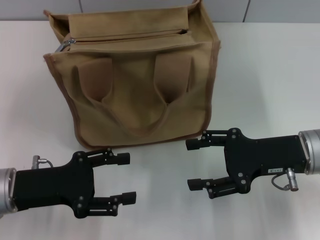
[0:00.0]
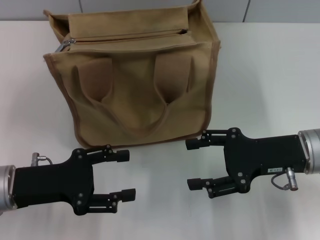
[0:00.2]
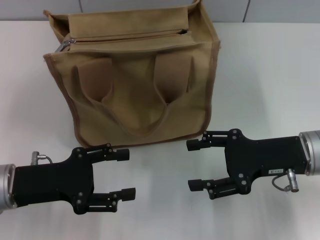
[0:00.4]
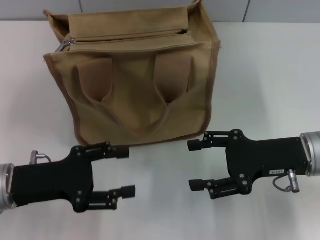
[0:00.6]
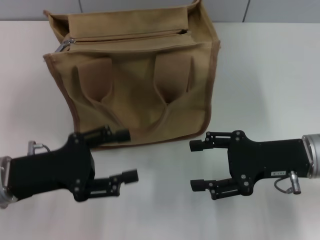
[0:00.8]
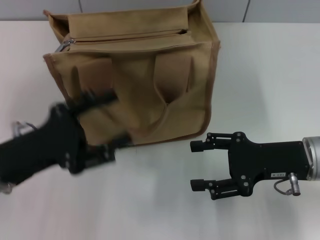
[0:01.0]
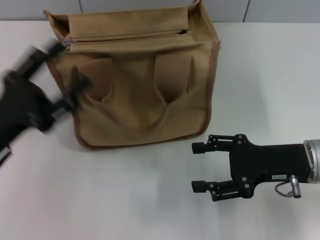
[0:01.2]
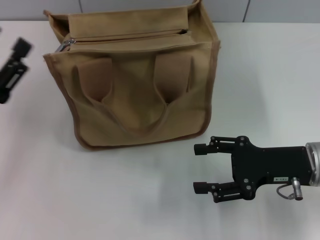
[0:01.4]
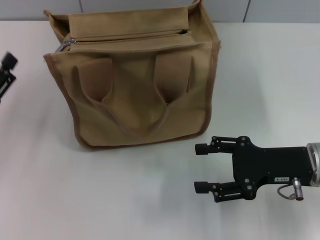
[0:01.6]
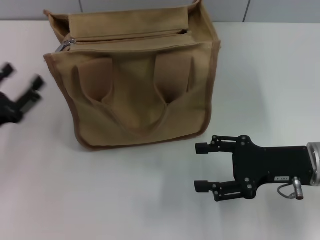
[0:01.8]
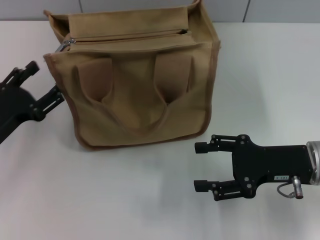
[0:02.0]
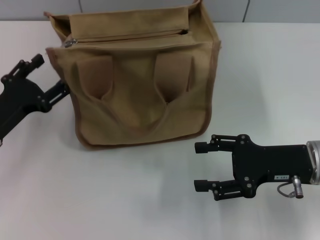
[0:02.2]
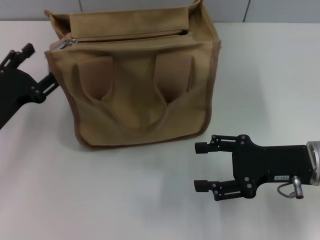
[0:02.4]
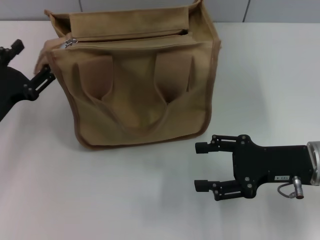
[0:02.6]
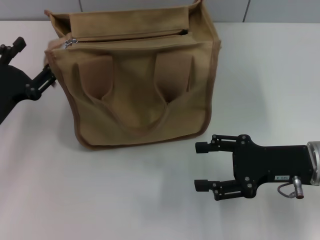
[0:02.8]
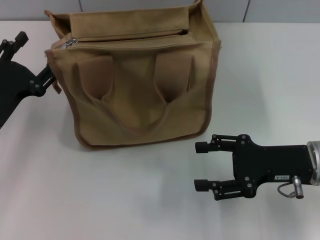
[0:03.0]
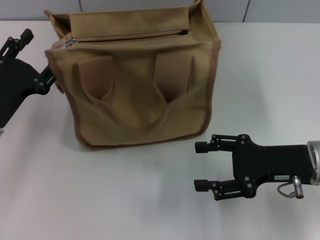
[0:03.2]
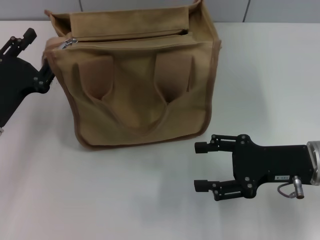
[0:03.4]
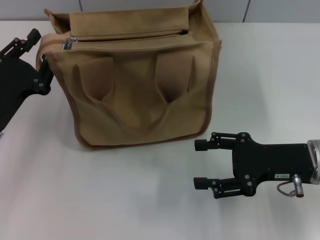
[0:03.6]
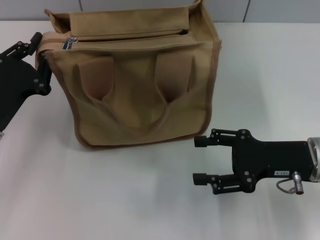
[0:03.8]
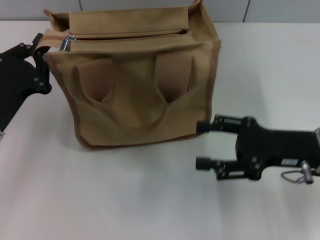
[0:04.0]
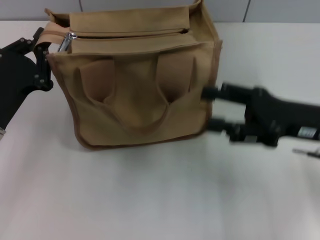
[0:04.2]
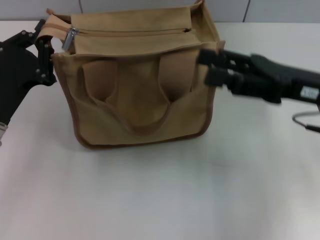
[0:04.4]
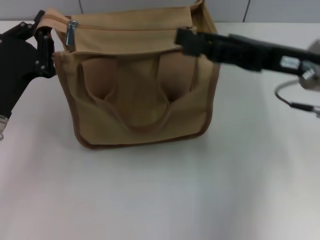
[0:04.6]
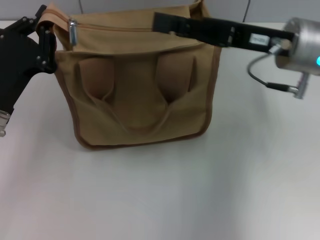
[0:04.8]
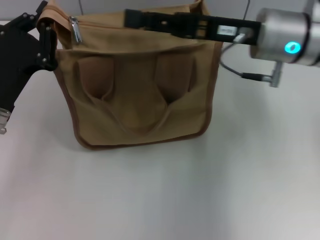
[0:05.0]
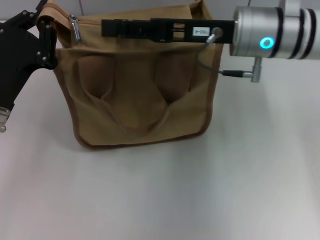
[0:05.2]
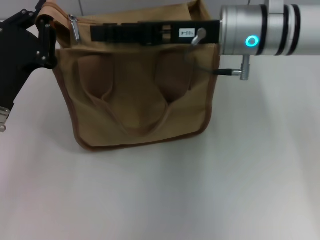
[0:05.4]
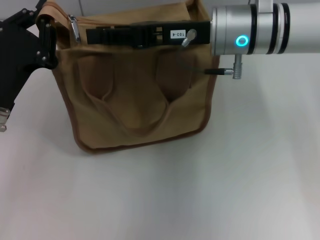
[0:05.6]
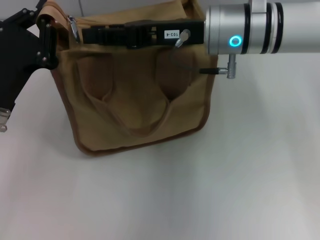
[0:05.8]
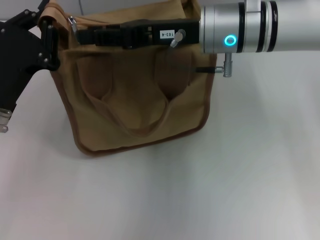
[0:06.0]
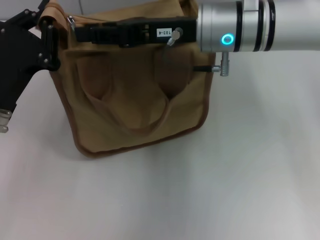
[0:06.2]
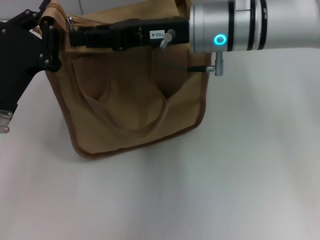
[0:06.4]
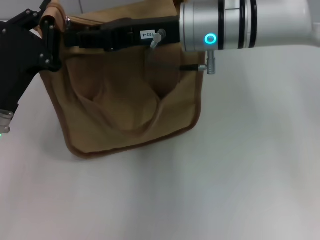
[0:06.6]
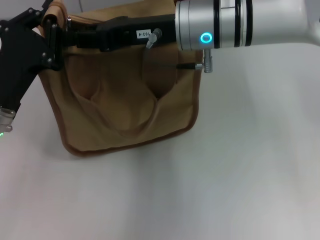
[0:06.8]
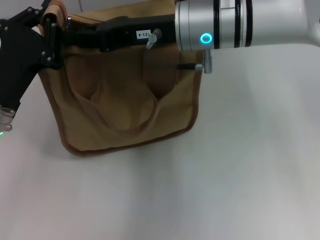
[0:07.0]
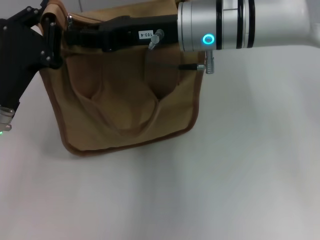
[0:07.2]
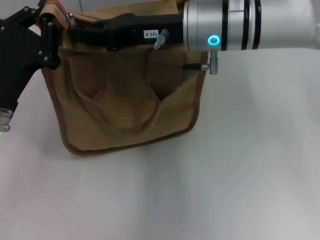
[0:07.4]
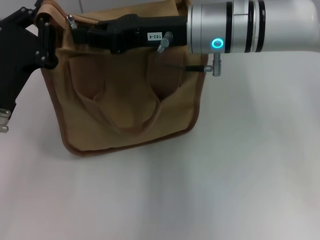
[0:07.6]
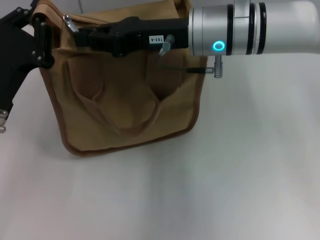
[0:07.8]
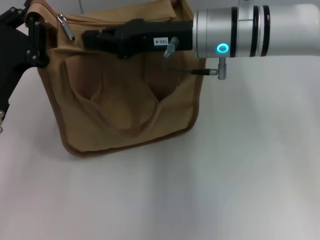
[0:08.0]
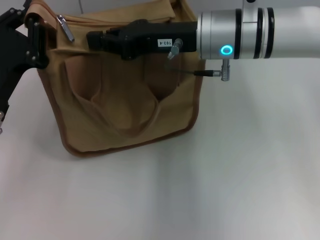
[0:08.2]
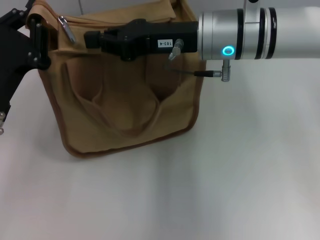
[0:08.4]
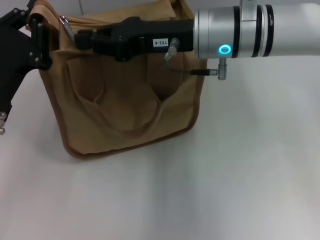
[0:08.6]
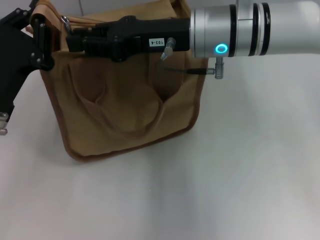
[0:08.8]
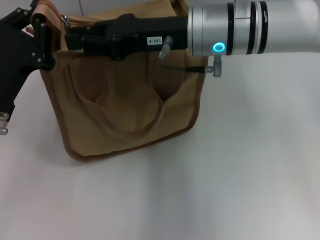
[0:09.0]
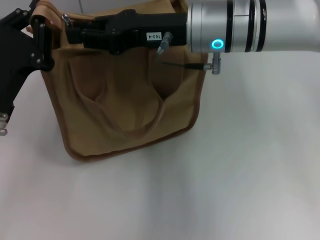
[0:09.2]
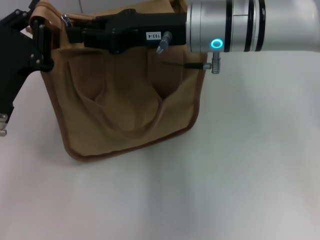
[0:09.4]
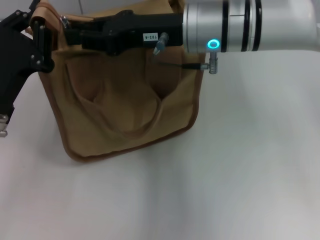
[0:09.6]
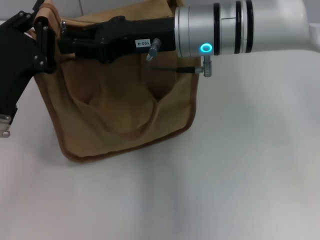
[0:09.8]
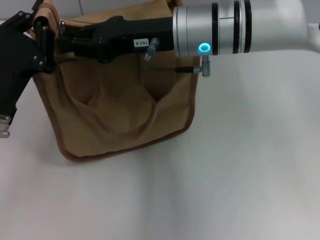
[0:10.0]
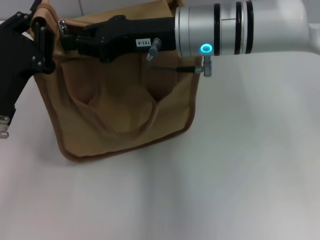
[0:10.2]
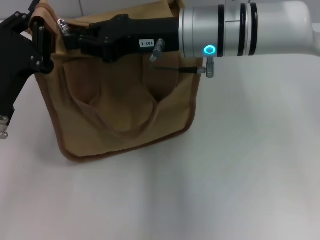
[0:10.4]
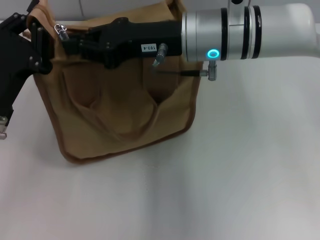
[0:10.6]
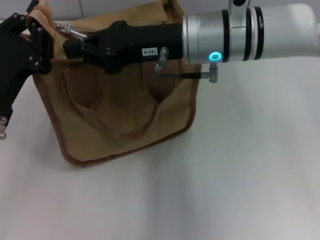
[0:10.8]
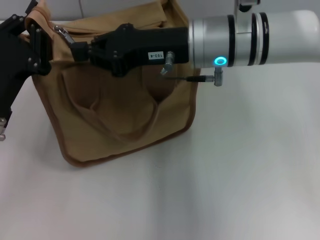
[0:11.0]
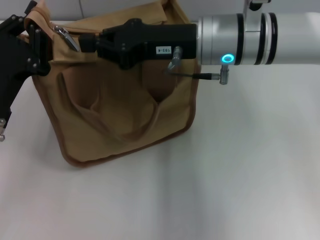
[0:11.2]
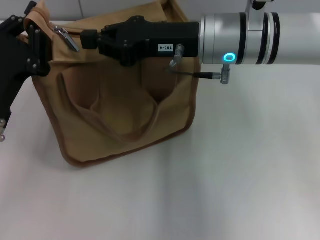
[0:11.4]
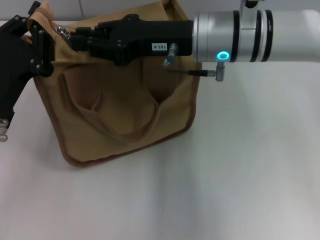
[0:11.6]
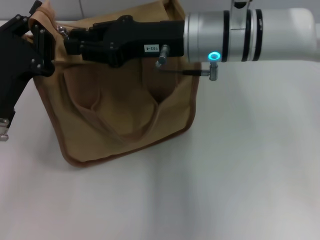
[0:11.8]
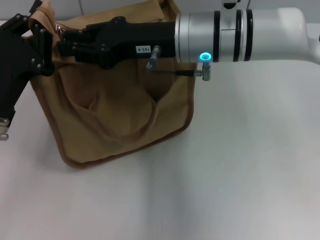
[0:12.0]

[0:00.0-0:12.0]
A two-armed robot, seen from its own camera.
0:00.0 to 0:01.6: The left gripper heads to the left, covering about 5 cm.
0:01.6 to 0:03.0: The left gripper ends up about 5 cm from where it was.
0:03.0 to 0:04.4: The right gripper is displaced upward by some 5 cm. The left gripper closes its fingers.
0:04.4 to 0:06.0: The right gripper shifts about 15 cm to the left and forward, and closes up.
0:06.0 to 0:12.0: The grippers make only small movements.

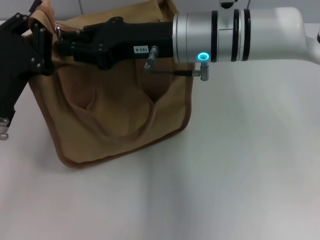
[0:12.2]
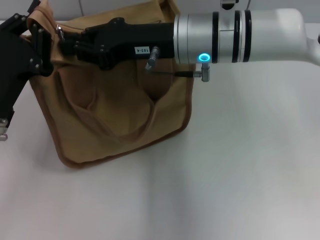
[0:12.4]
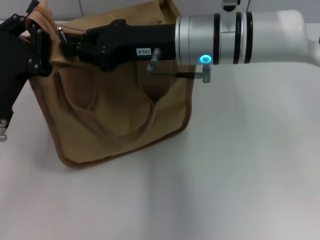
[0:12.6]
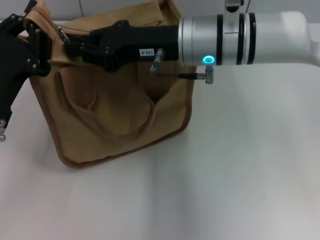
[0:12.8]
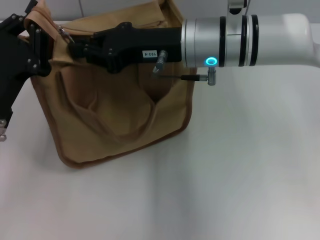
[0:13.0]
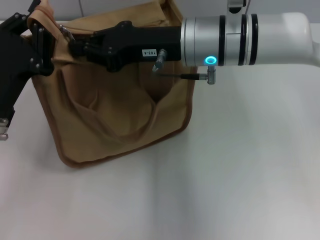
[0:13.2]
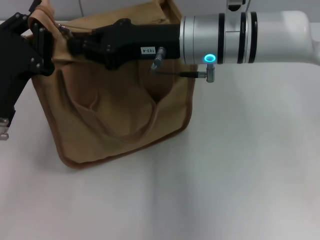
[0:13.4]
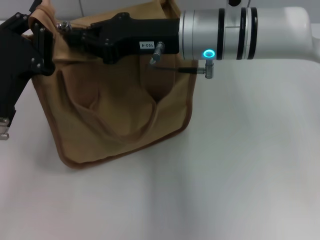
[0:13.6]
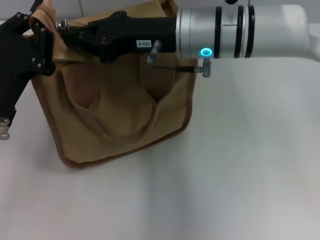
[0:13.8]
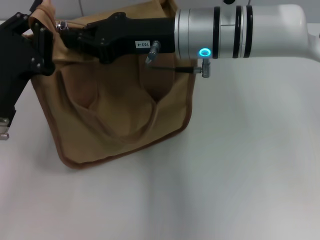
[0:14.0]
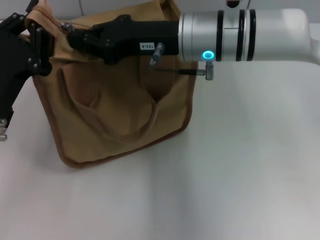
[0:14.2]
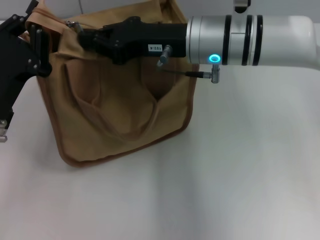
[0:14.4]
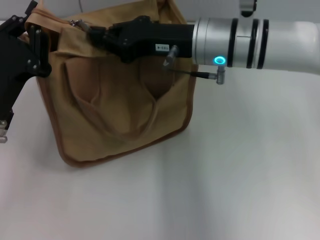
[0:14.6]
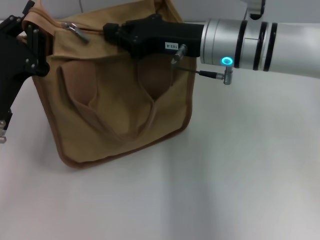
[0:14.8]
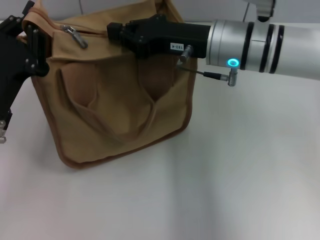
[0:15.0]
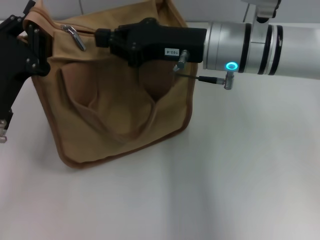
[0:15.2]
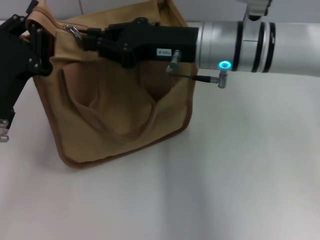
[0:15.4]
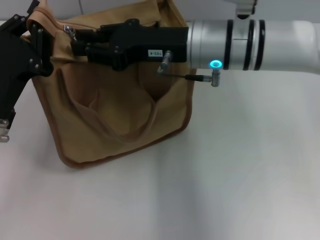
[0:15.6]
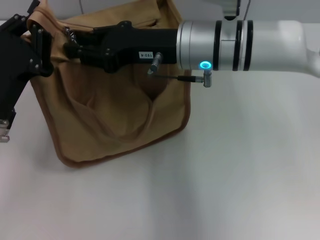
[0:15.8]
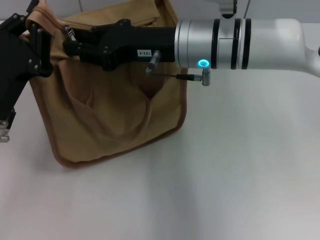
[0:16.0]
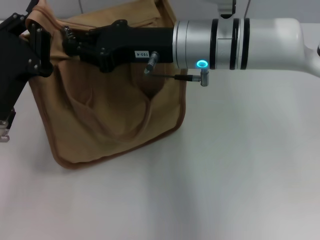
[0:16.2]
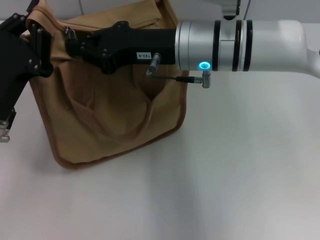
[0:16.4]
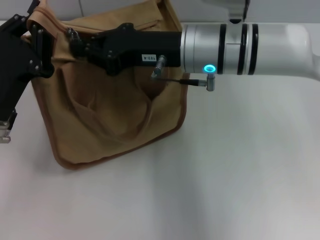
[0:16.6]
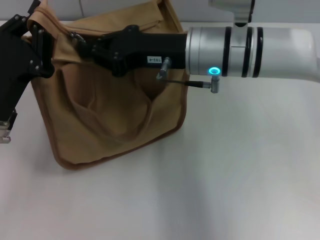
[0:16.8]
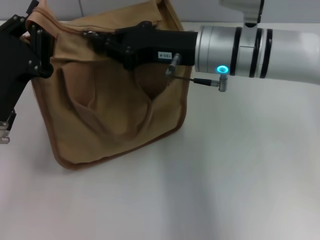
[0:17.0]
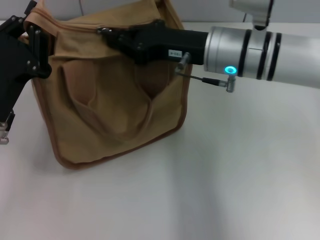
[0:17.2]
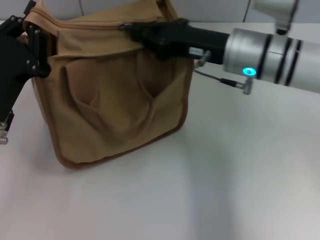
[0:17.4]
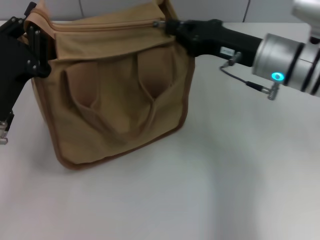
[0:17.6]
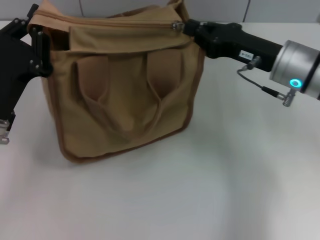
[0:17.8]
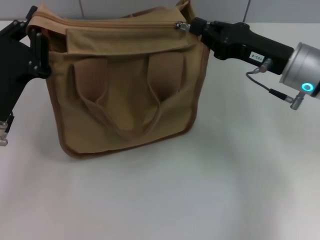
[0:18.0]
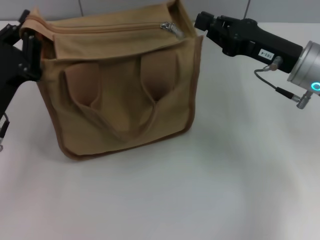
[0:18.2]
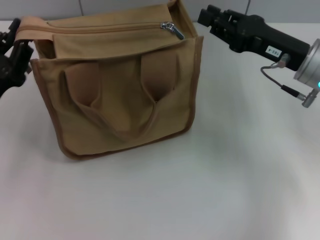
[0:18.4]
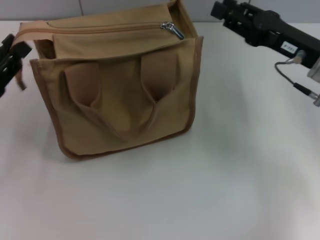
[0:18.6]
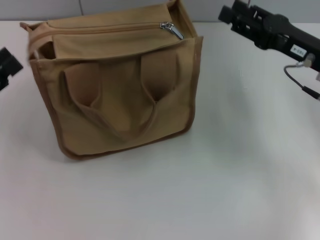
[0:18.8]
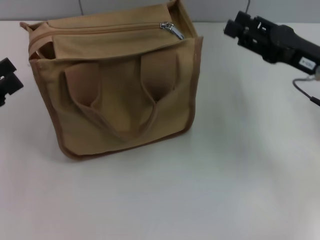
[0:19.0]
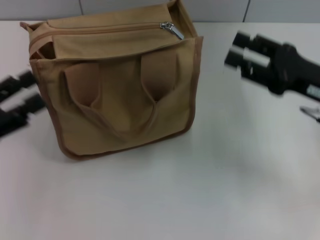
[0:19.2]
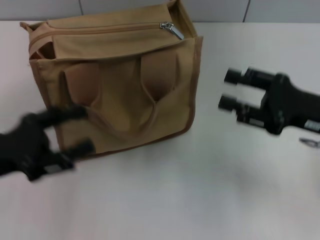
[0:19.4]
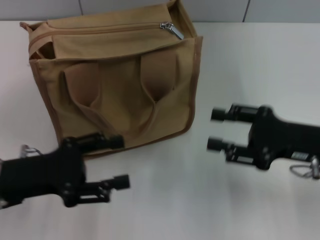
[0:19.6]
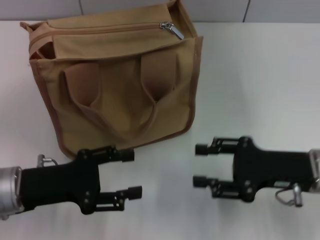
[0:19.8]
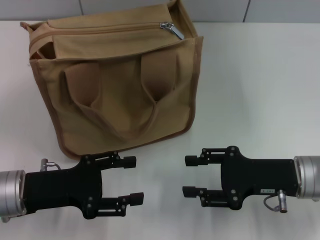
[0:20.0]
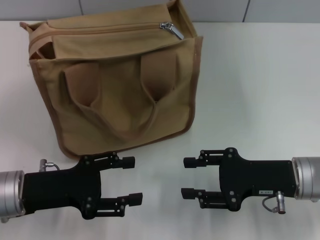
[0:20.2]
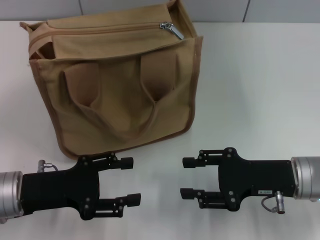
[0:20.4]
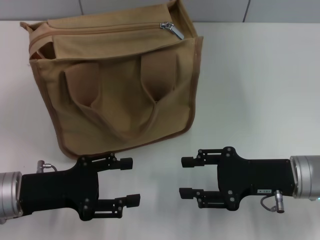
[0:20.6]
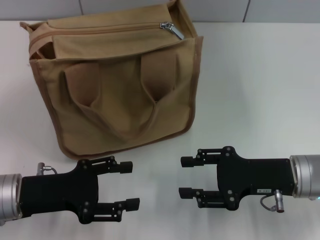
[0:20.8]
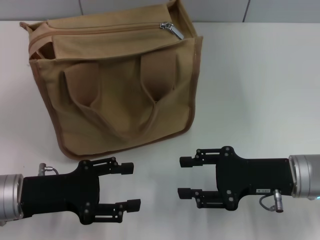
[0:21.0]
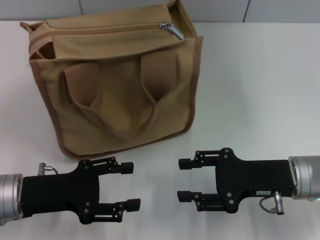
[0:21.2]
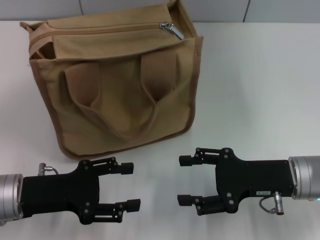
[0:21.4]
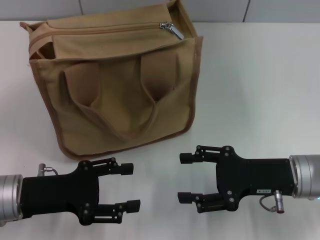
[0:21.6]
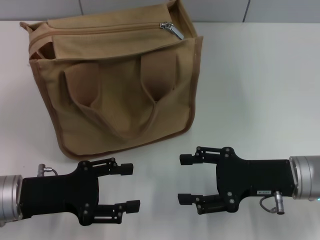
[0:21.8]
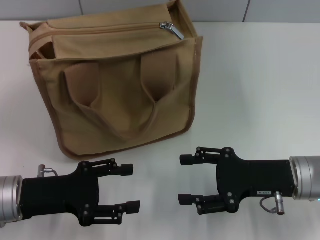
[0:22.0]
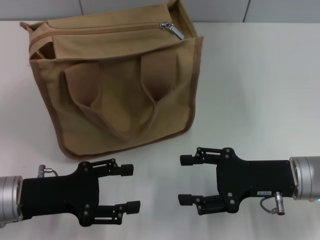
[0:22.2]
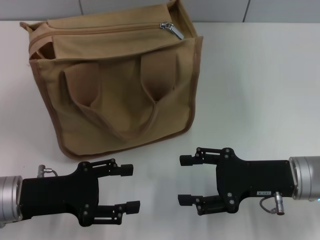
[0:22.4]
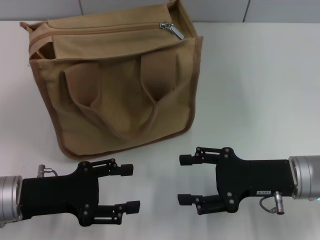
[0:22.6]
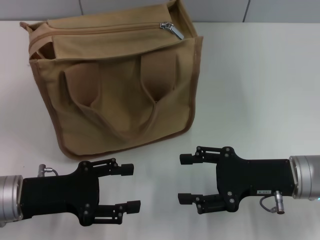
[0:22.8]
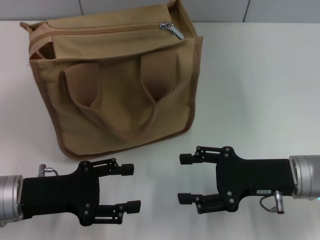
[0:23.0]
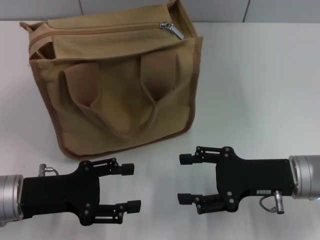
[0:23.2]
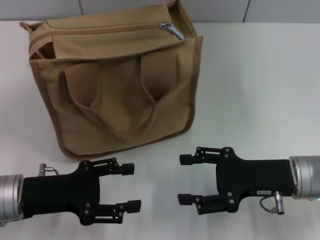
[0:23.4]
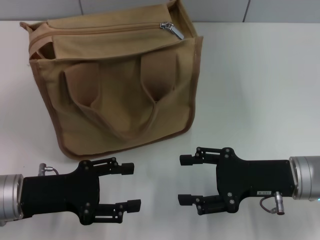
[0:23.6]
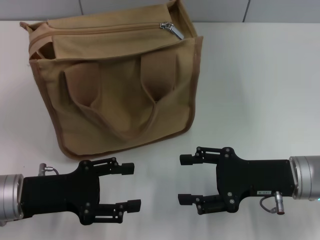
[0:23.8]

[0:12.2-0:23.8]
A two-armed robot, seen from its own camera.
Step, 0:12.2 to 0:18.2: Pull up the zipper with your right hand.
Step, 0:18.4 to 0:19.0: Grab the zipper with your left hand.
0:12.2 to 0:13.6: The two grippers keep their place.
0:13.6 to 0:15.0: There are only small adjustments of the grippers.
0:15.0 to 0:16.6: The right gripper opens and closes again.
0:16.6 to 0:18.0: The right gripper travels to the right by approximately 15 cm.
0:18.0 to 0:19.4: The right gripper is displaced backward and to the right by about 10 cm, and opens up; the left gripper opens its fingers.
0:19.4 to 0:21.0: The right gripper goes some 5 cm downward, while the left gripper shifts by about 5 cm.
0:21.0 to 0:23.8: Neither gripper changes place.
